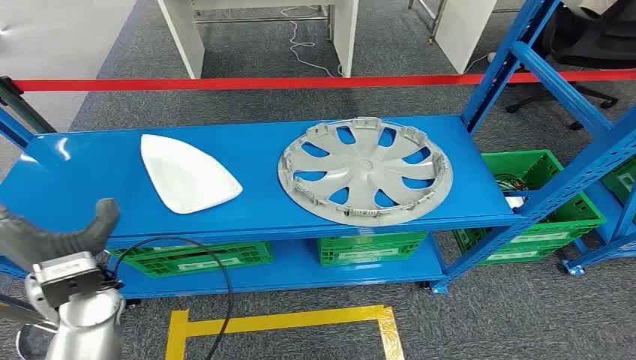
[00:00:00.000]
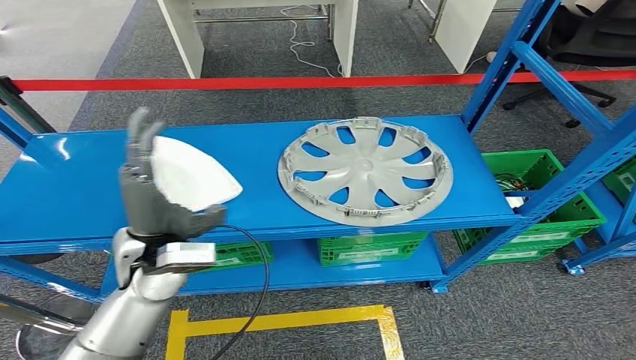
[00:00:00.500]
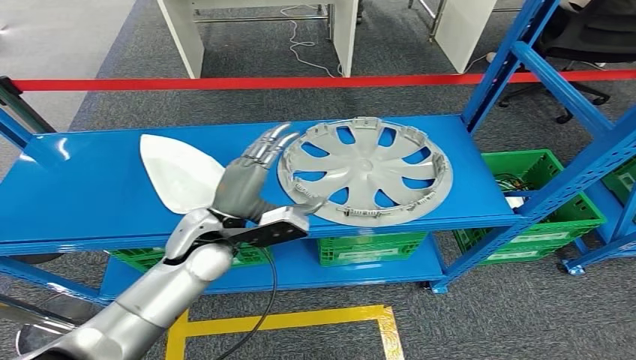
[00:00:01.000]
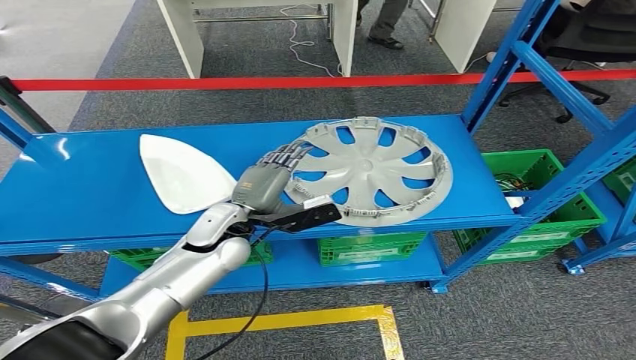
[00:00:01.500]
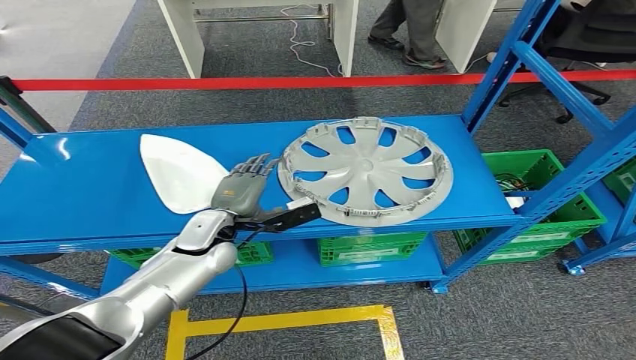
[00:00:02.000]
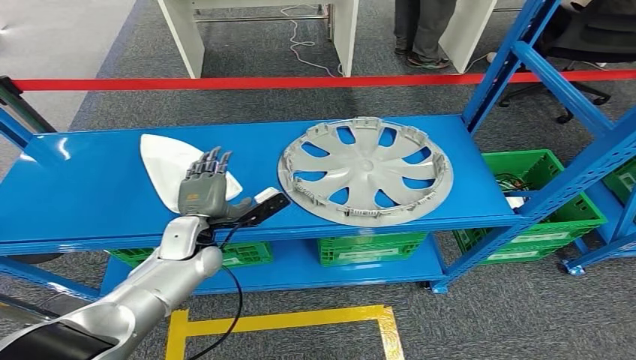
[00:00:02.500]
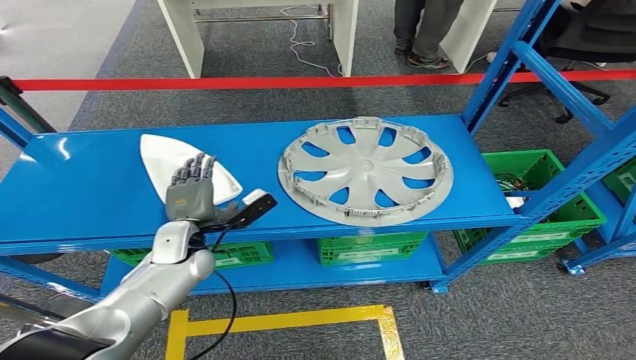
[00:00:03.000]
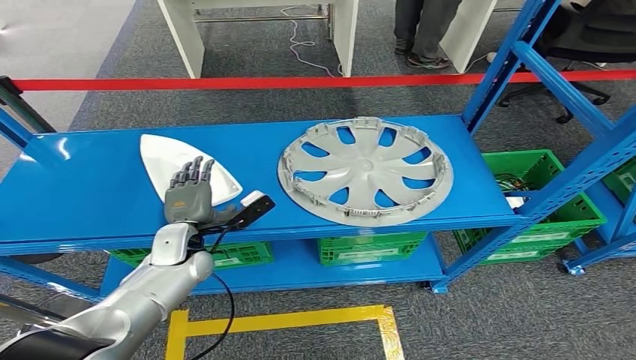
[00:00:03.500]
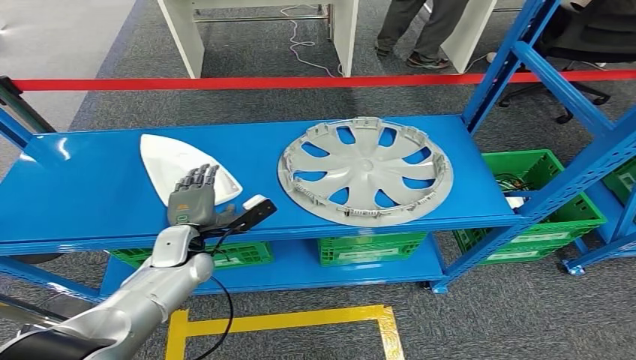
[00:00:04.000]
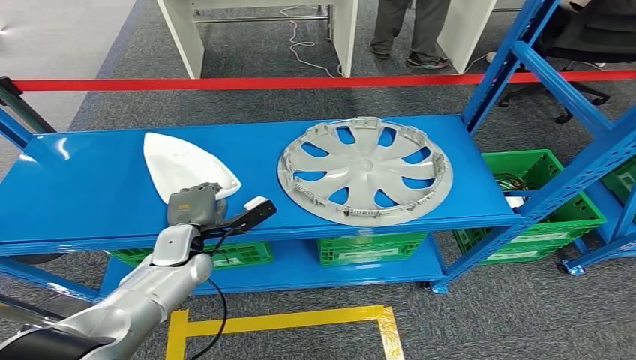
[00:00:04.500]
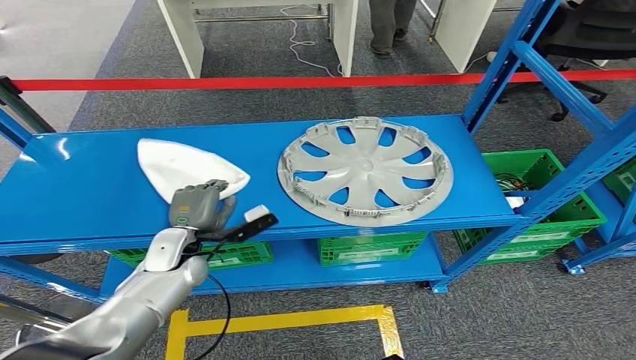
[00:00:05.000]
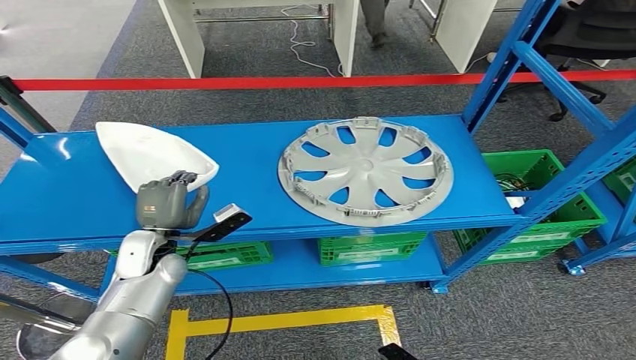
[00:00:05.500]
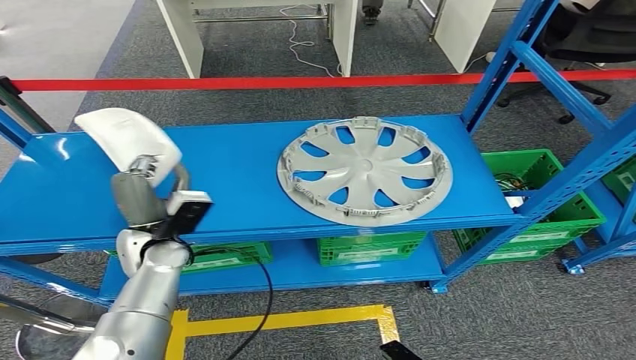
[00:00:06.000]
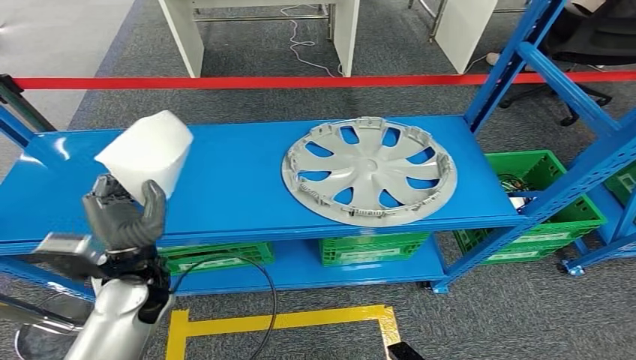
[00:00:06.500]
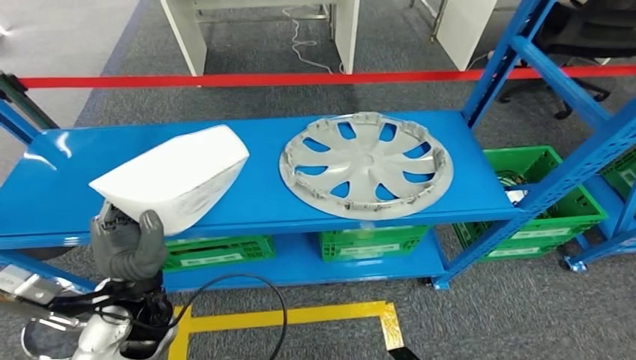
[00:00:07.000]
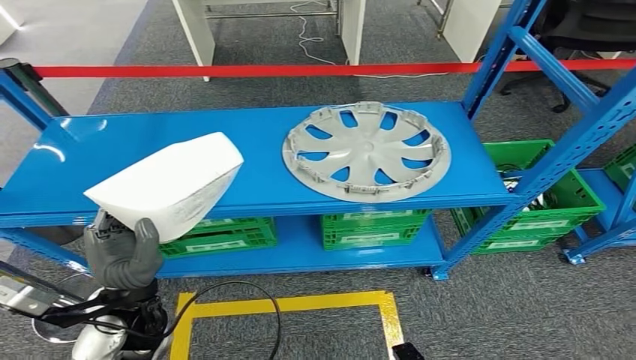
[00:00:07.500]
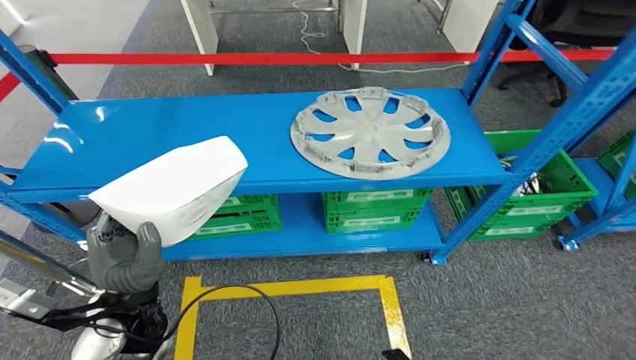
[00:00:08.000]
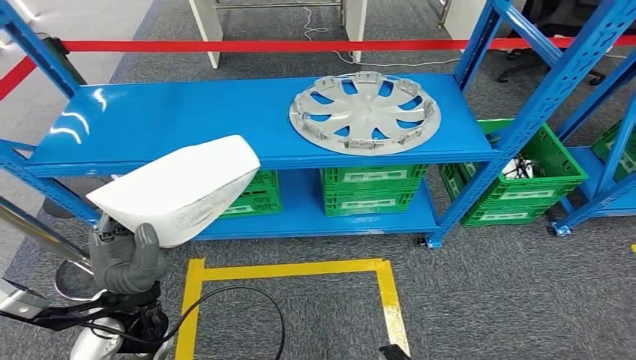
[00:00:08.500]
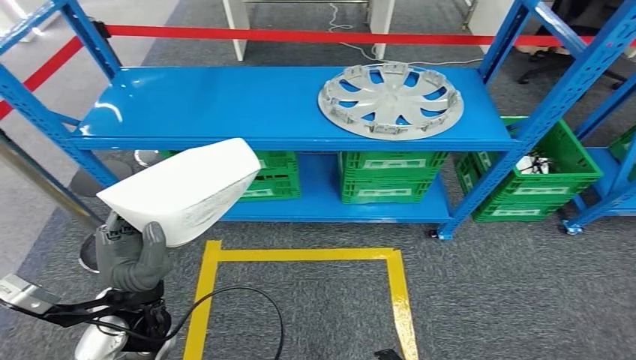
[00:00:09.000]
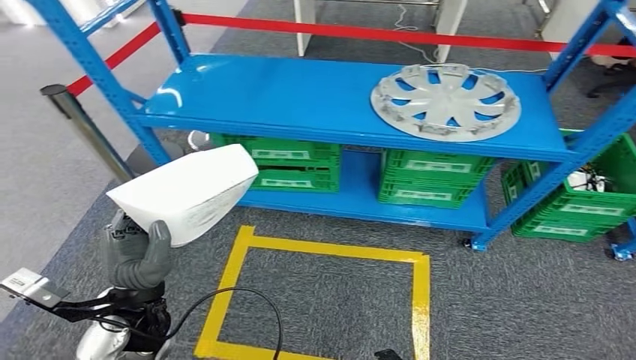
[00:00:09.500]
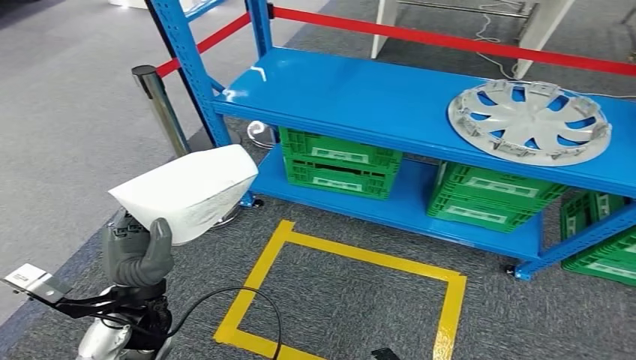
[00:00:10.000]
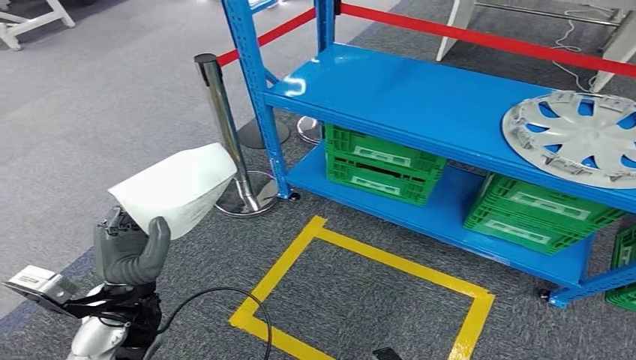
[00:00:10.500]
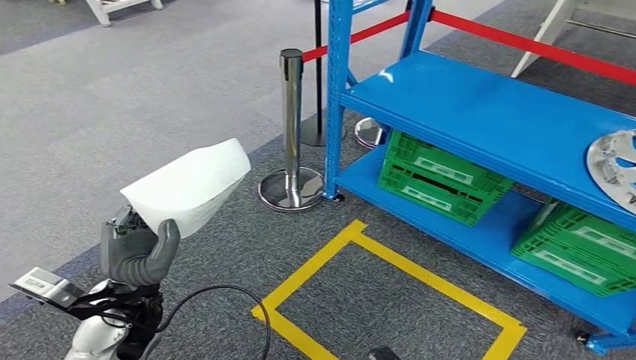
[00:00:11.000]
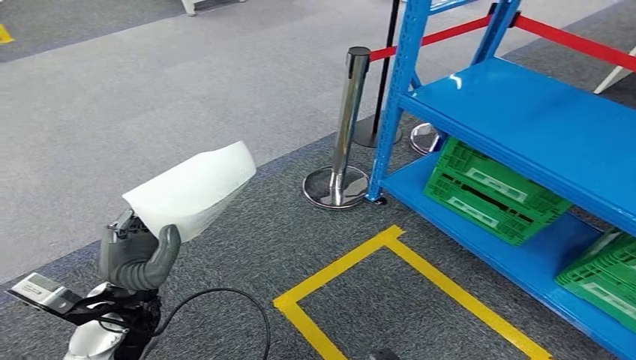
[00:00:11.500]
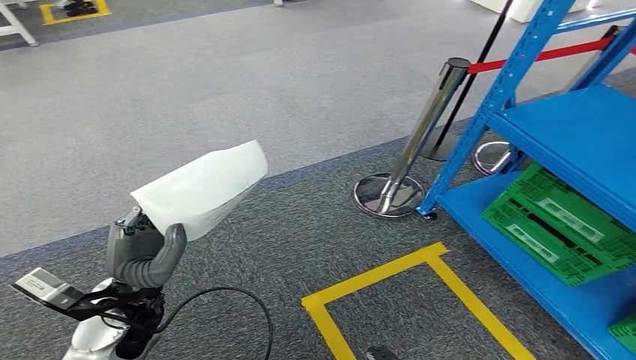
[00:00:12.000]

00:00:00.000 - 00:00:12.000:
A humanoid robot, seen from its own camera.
Step, 00:00:00.000 - 00:00:07.500: Pick up the small parts from the shelf.
00:00:02.000 - 00:00:04.000: The left hand moves to the left, some 5 cm.
00:00:04.000 - 00:00:06.000: The left hand heads upward, covering some 5 cm.

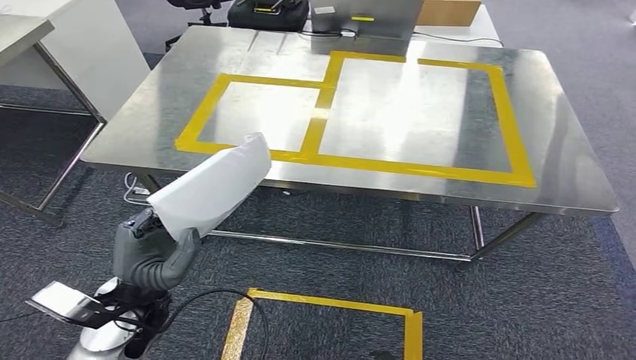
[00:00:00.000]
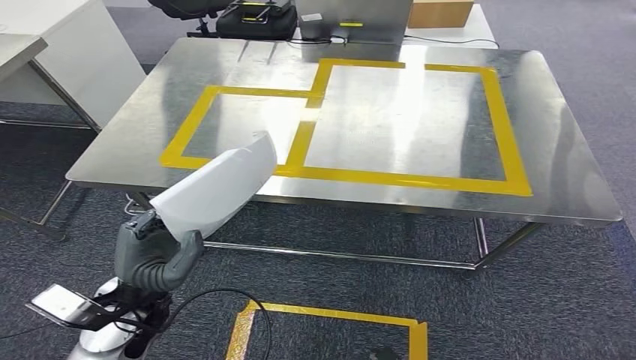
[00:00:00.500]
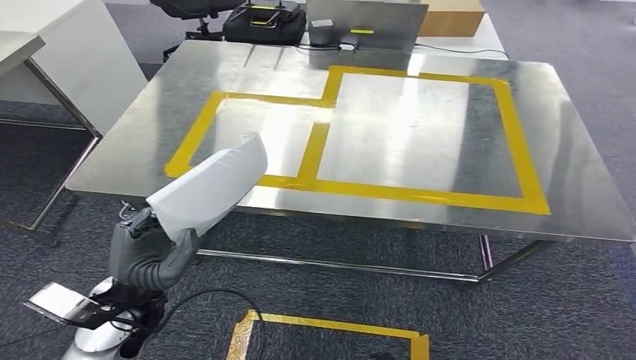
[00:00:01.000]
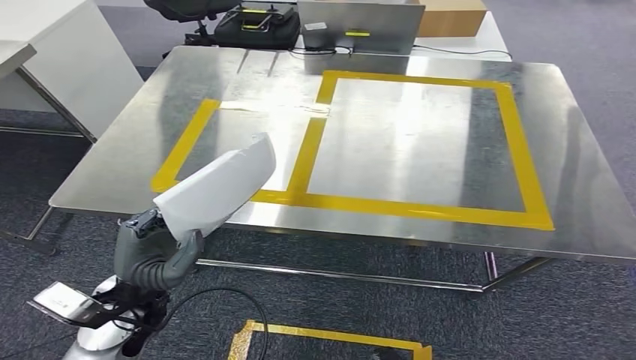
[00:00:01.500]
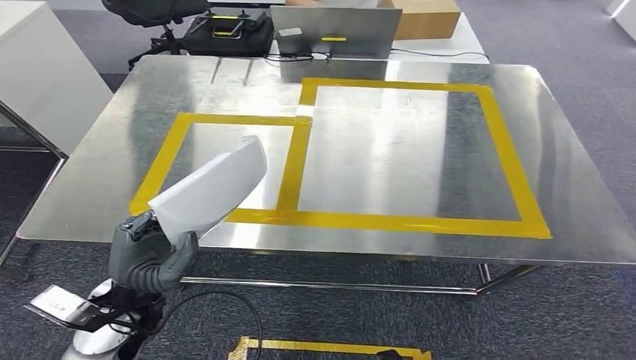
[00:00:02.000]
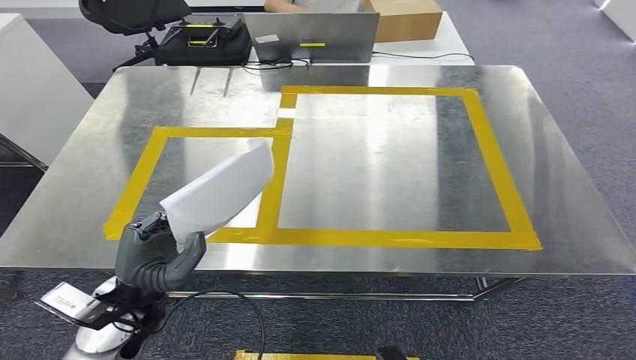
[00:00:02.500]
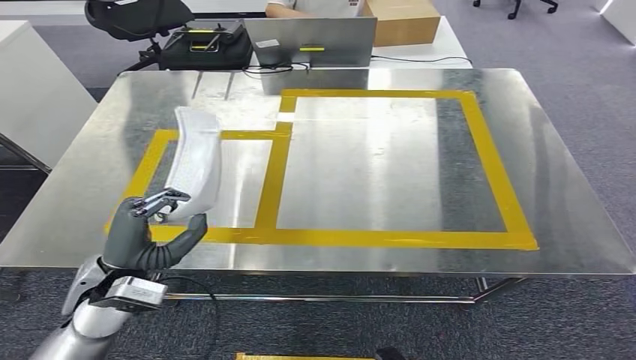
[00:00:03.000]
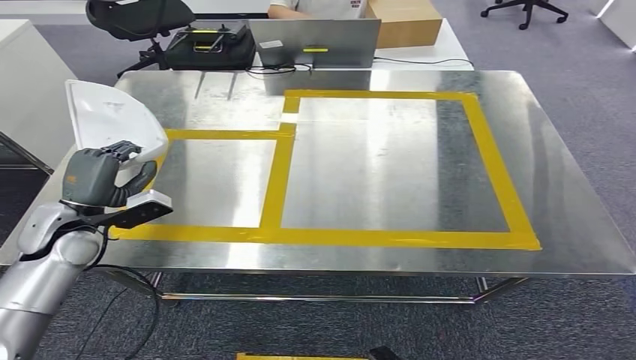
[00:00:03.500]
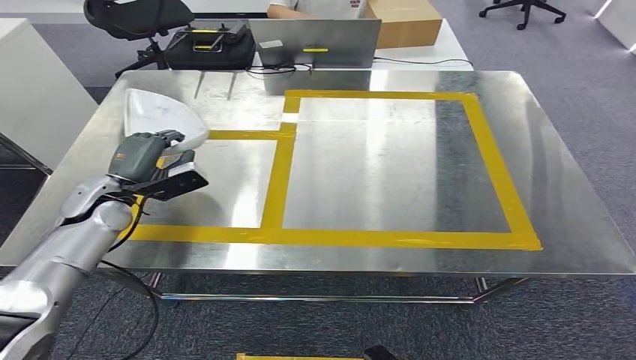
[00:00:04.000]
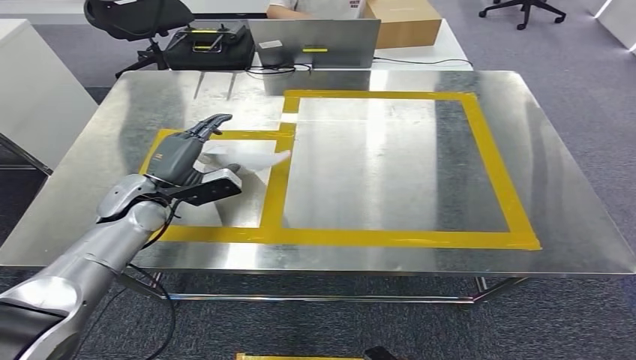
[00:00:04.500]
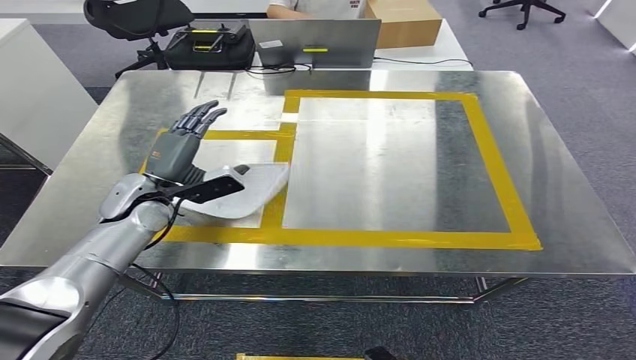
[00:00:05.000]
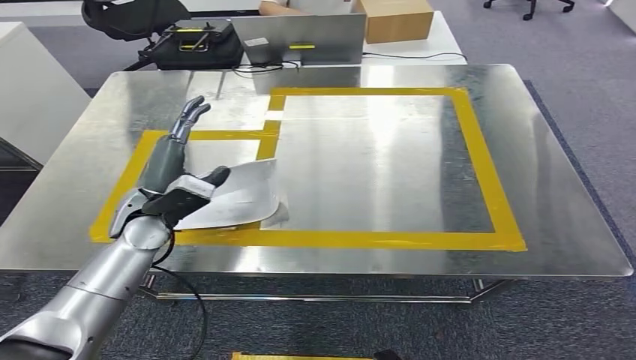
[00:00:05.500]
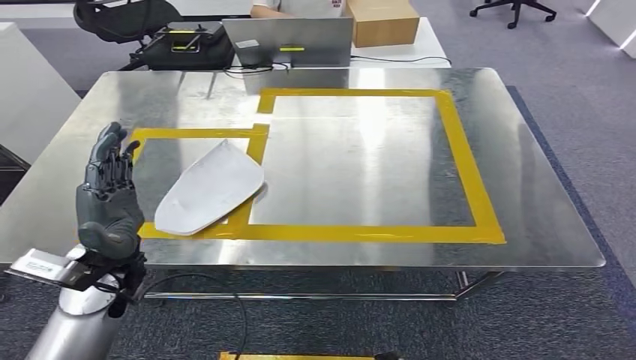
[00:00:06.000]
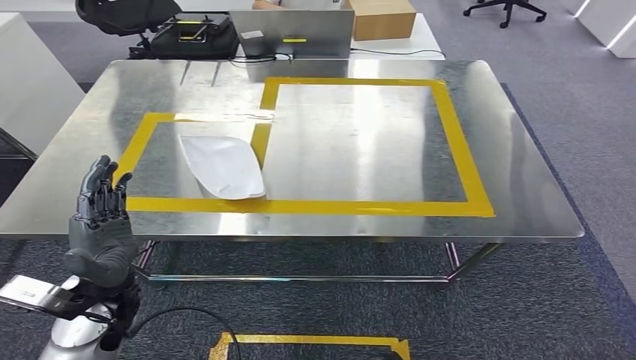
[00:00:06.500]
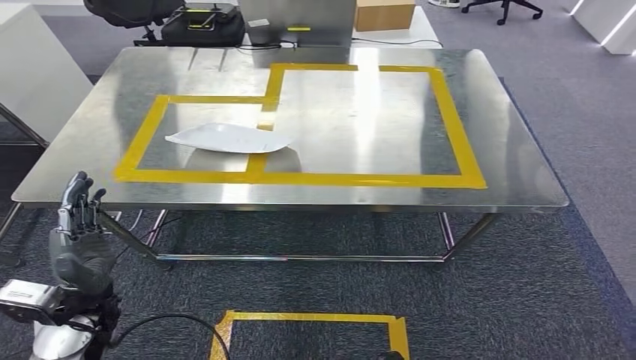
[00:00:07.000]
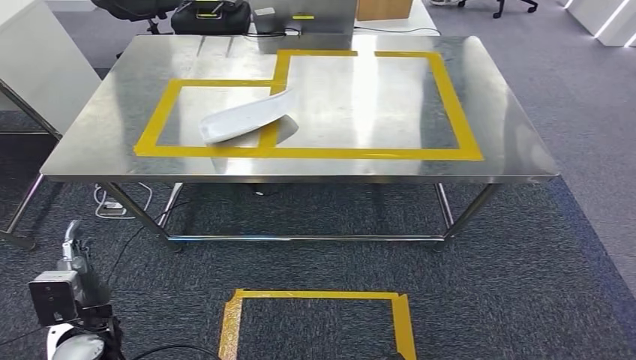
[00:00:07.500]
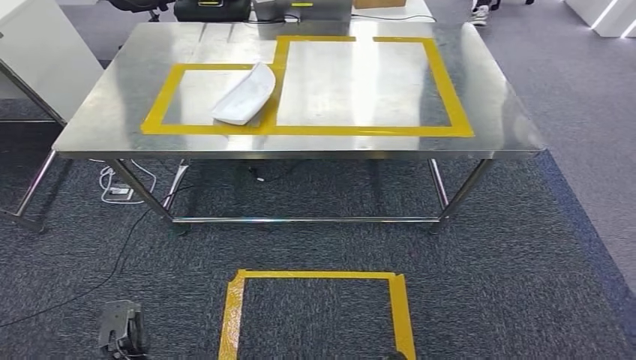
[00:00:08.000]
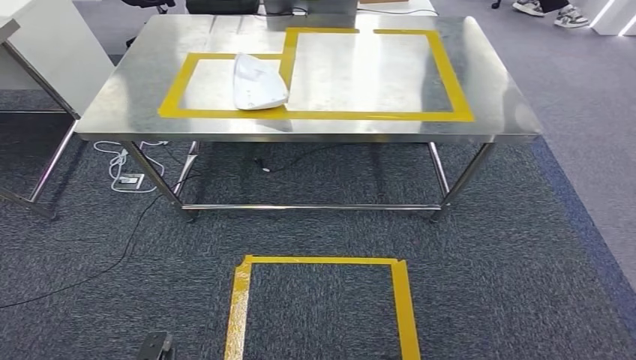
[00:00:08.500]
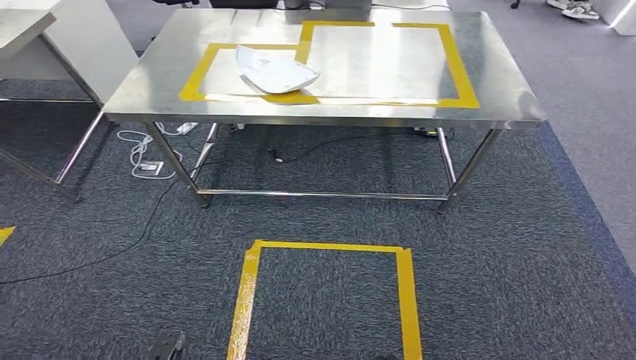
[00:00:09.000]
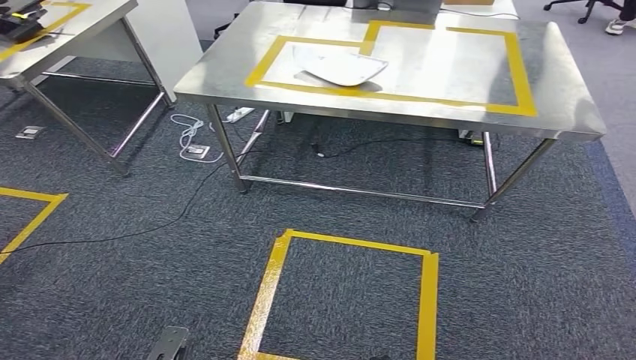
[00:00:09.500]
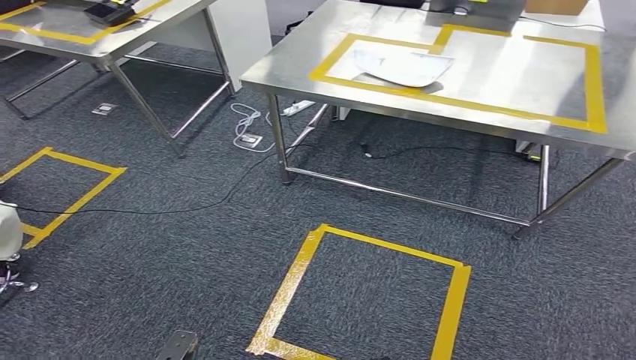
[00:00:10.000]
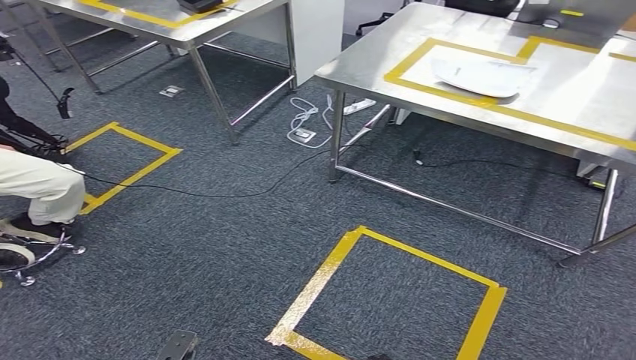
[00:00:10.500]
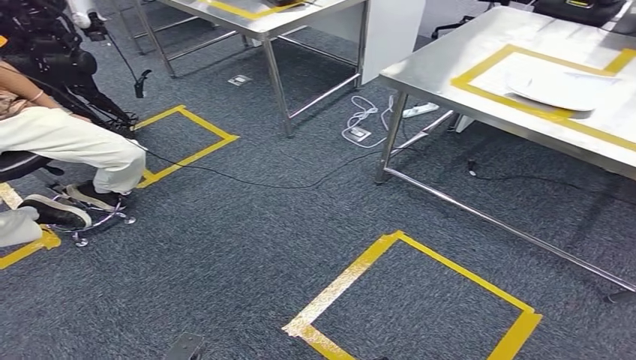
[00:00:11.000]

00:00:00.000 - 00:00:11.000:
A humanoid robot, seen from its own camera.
Step, 00:00:01.000 - 00:00:07.000: Insert the small parts into the corresponding slots on the workbench.
